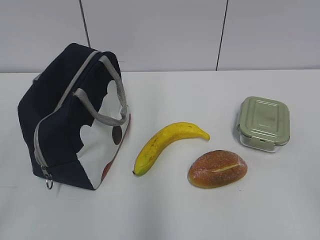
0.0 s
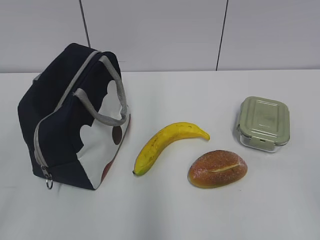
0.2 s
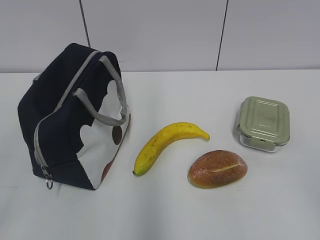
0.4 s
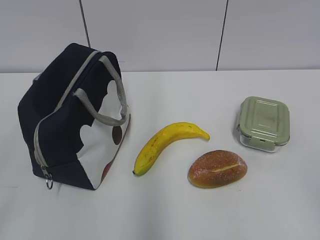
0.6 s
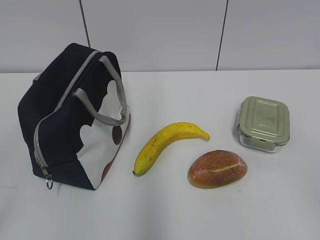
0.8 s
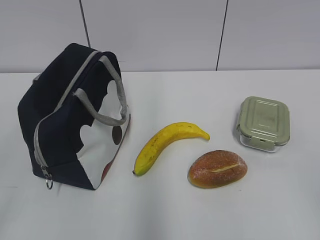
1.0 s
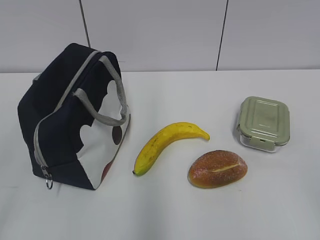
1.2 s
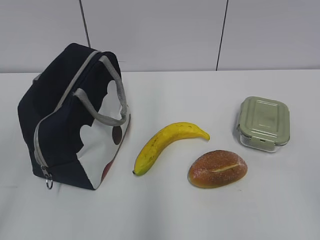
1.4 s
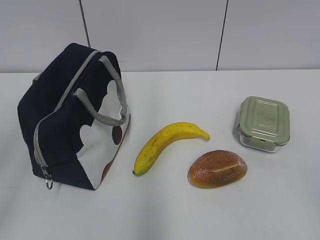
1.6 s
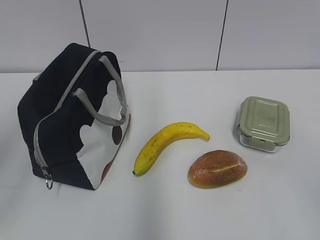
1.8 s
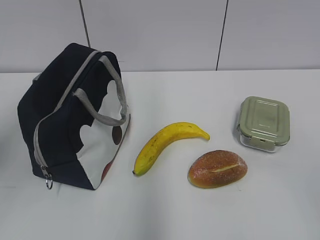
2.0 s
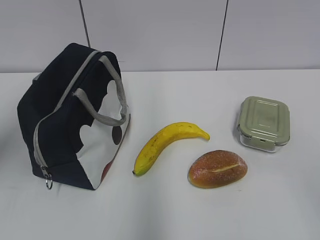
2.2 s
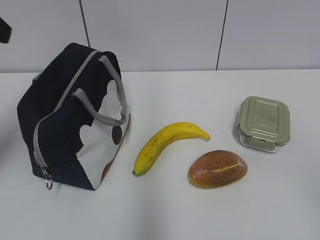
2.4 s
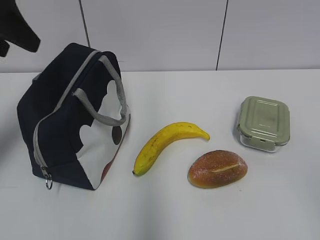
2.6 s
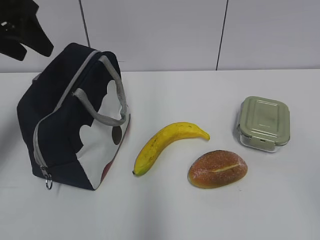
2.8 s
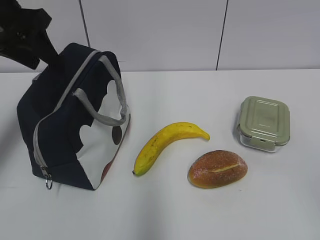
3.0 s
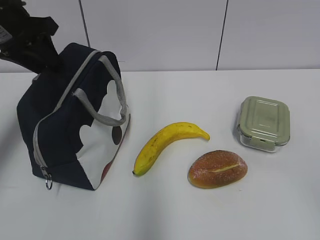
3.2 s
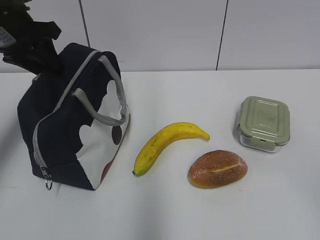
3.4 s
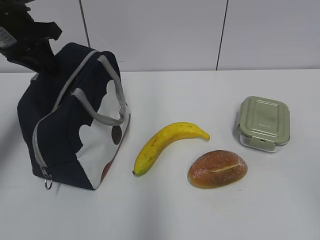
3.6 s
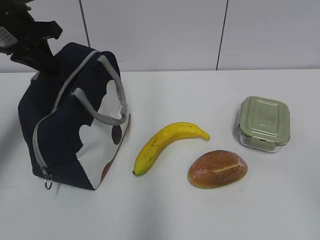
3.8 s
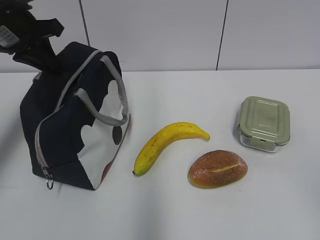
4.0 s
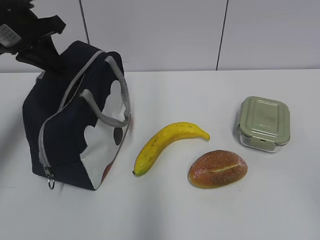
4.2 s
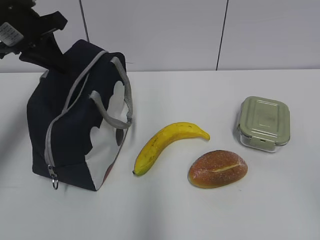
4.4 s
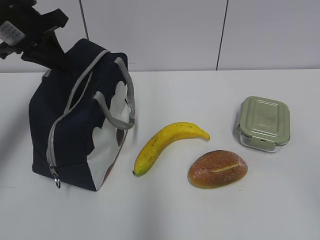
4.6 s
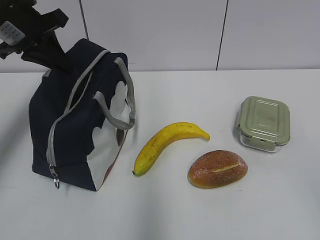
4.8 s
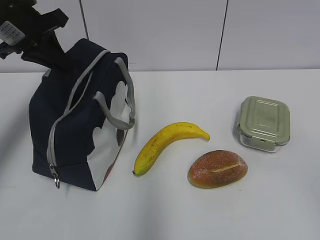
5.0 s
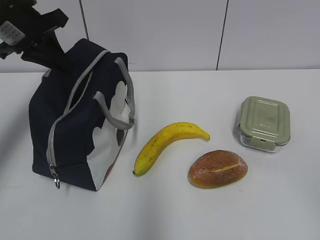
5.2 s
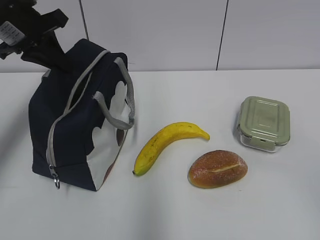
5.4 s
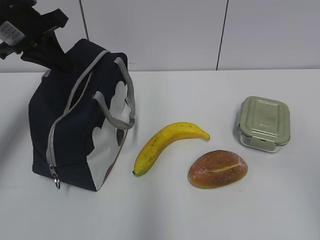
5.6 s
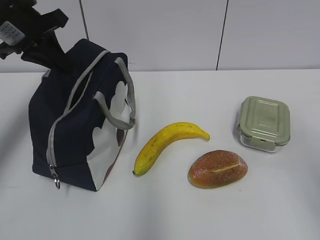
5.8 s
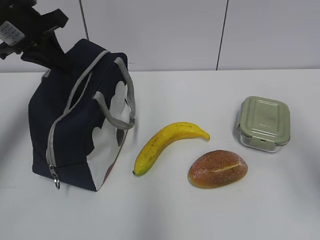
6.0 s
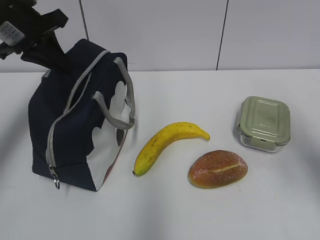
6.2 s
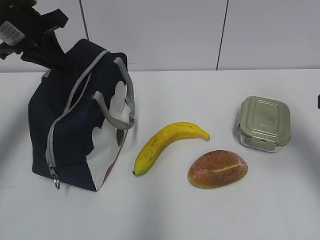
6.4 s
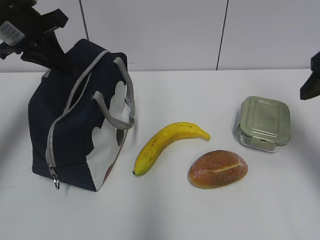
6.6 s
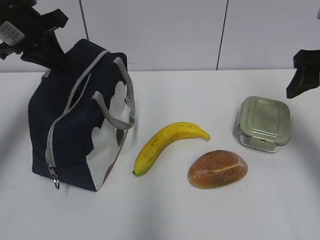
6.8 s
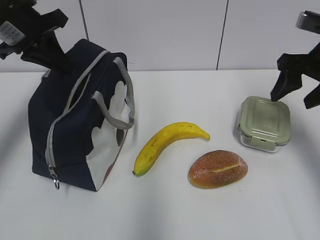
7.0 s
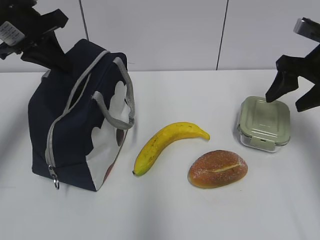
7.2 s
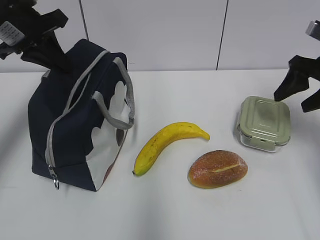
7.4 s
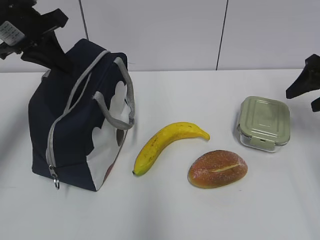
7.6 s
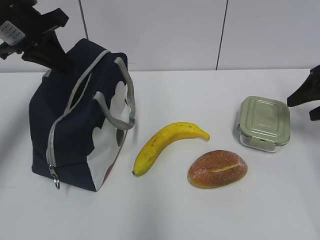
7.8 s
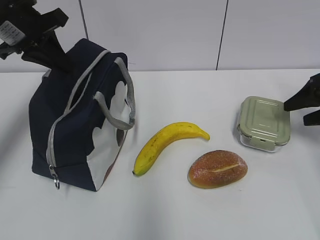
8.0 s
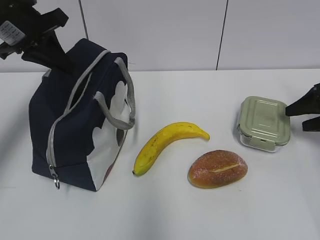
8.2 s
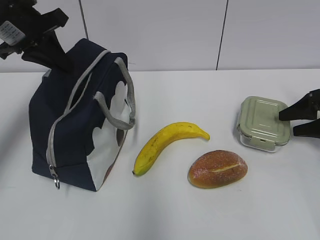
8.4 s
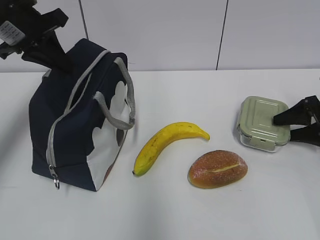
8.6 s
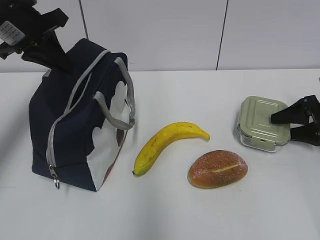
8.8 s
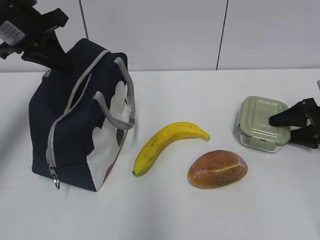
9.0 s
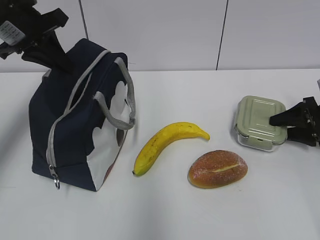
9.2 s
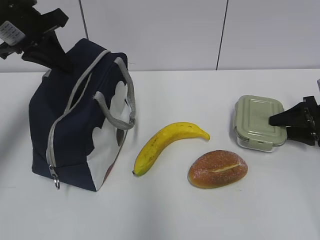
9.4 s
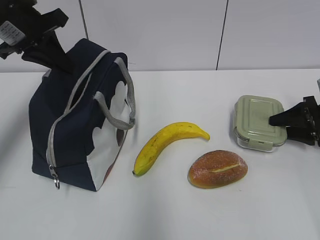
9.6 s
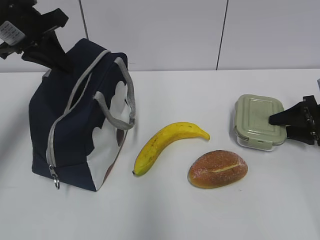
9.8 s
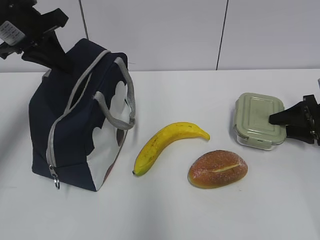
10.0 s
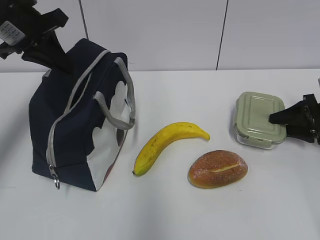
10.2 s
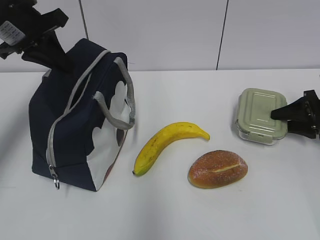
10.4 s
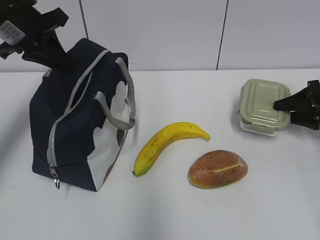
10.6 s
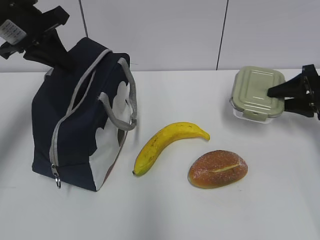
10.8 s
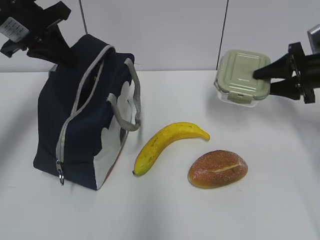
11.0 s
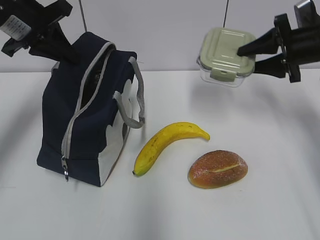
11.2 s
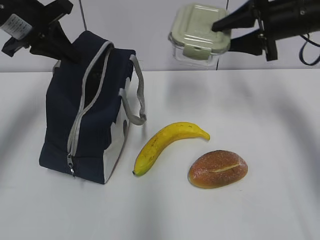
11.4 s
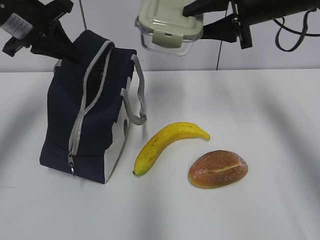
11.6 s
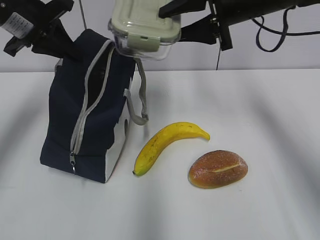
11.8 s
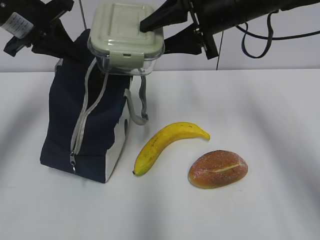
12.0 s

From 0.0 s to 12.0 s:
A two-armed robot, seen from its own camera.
Step, from 0.0 s to 9.8 s: Grab the lunch box with your right hand.
From 1.6 s to 3.0 s: The left gripper shifts approximately 35 cm forward.
From 3.0 s to 4.4 s: The left gripper closes up.
From 4.4 s to 6.0 s: The right gripper travels forward by some 15 cm.
From 6.0 s to 7.6 s: The right gripper moves forward, about 25 cm.
From 7.6 s to 9.0 s: The right gripper moves downward, roughly 15 cm.
From 9.0 s to 10.4 s: Both grippers stay put.
From 10.4 s to 12.0 s: The right gripper moves to the left and upward, approximately 35 cm.

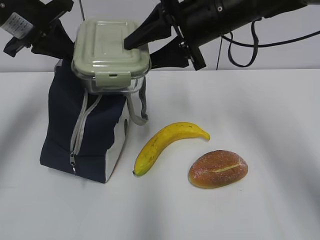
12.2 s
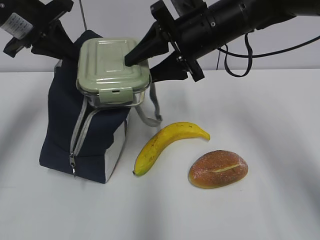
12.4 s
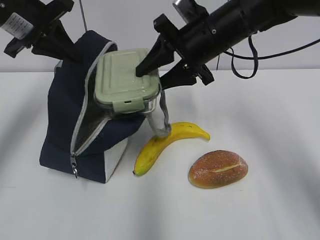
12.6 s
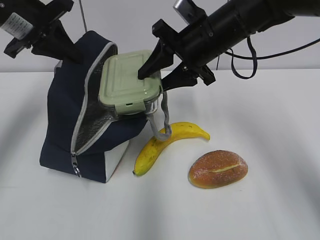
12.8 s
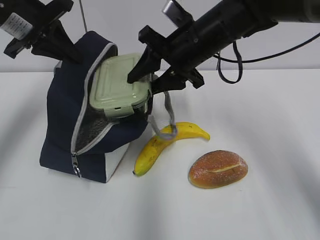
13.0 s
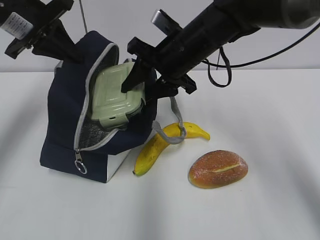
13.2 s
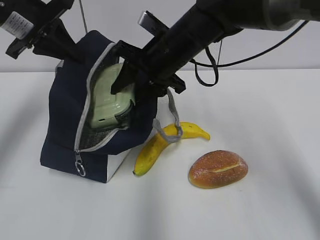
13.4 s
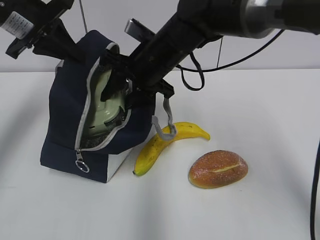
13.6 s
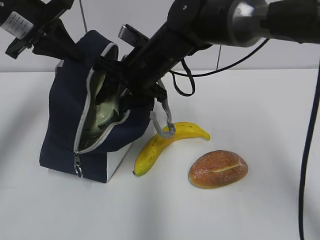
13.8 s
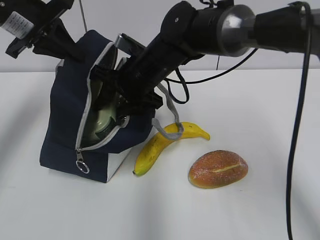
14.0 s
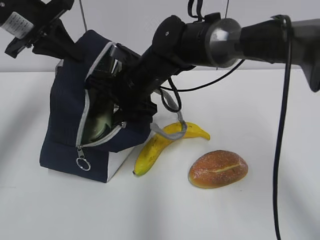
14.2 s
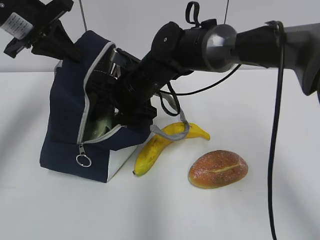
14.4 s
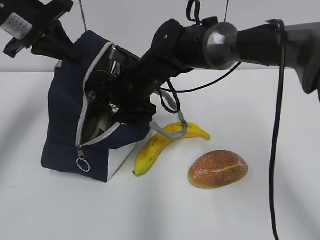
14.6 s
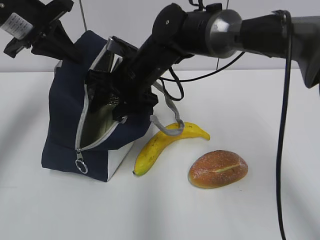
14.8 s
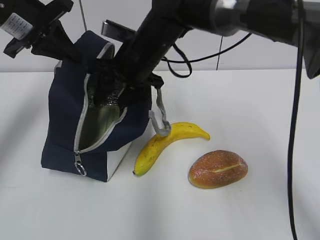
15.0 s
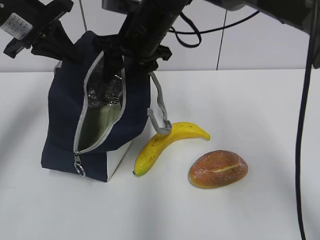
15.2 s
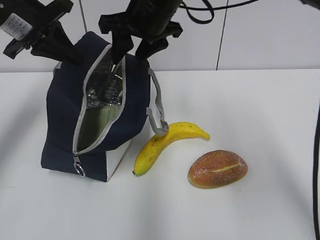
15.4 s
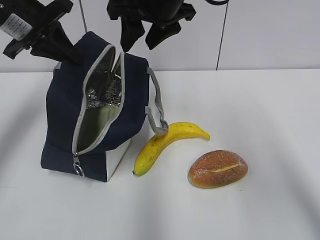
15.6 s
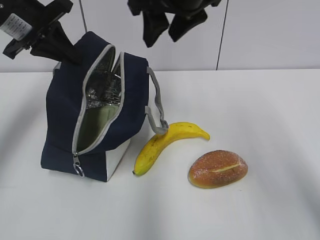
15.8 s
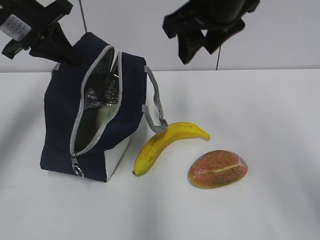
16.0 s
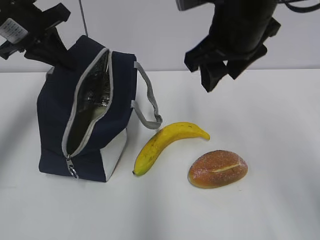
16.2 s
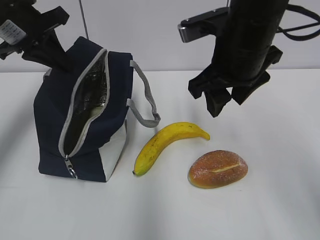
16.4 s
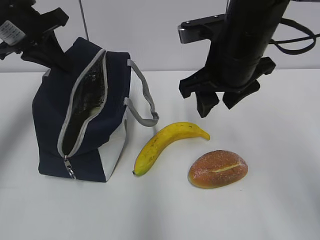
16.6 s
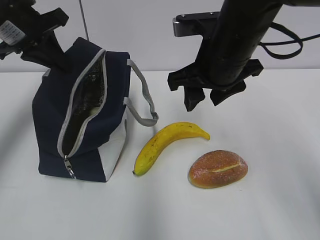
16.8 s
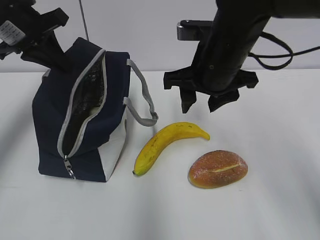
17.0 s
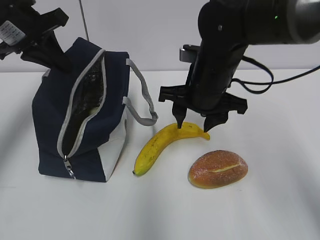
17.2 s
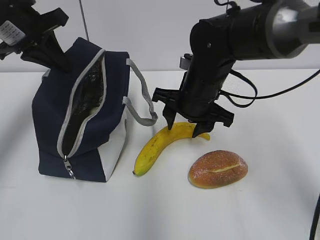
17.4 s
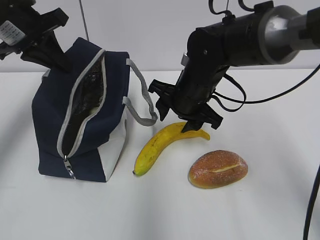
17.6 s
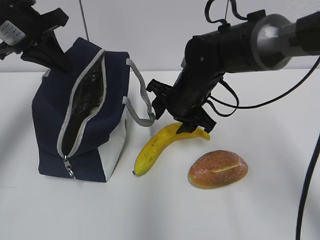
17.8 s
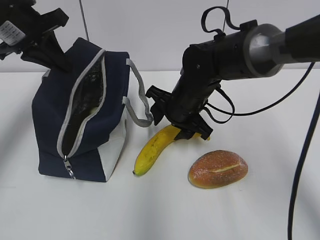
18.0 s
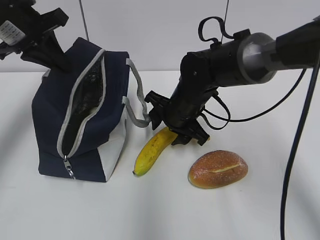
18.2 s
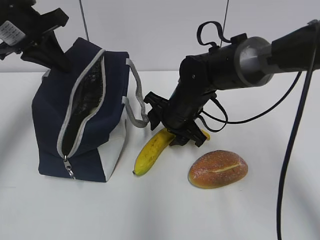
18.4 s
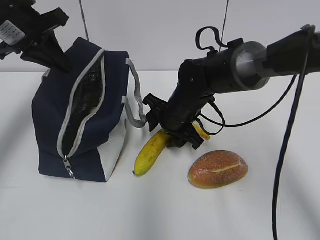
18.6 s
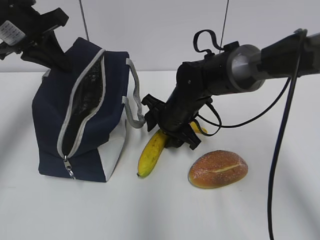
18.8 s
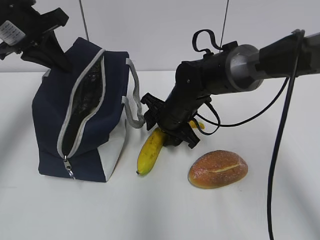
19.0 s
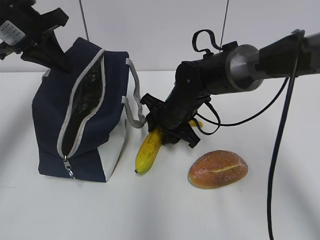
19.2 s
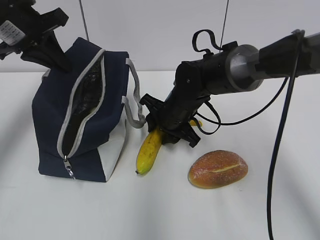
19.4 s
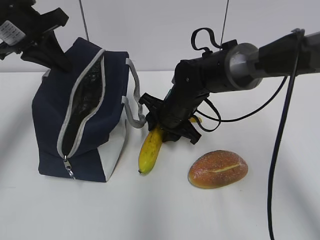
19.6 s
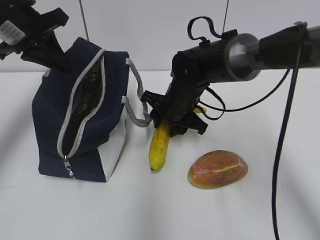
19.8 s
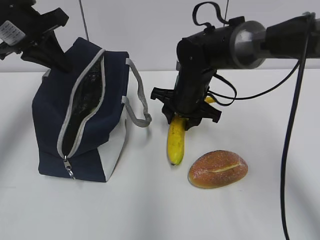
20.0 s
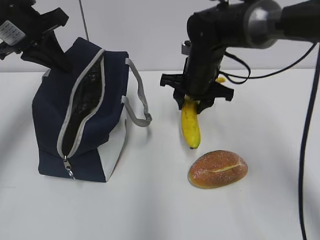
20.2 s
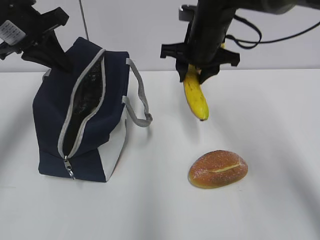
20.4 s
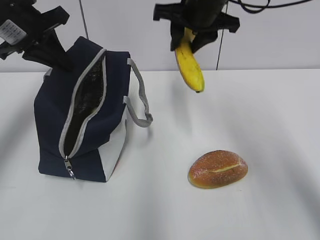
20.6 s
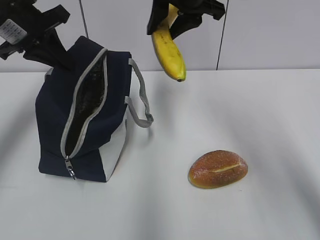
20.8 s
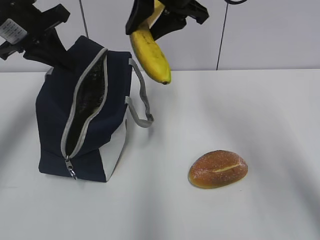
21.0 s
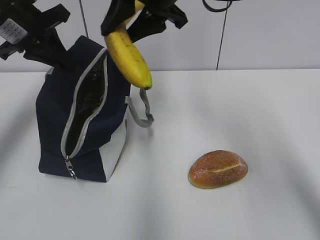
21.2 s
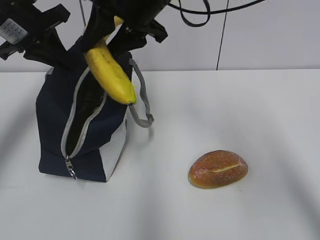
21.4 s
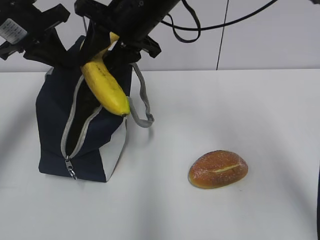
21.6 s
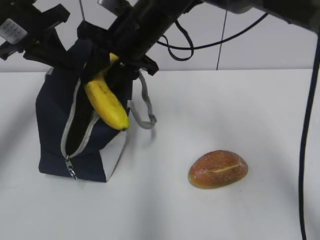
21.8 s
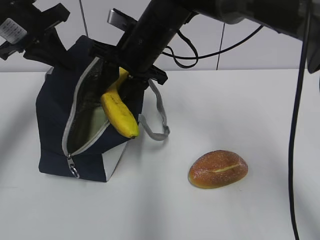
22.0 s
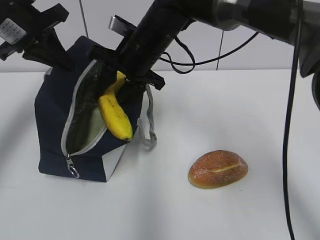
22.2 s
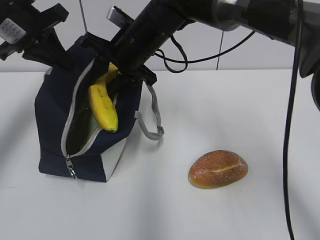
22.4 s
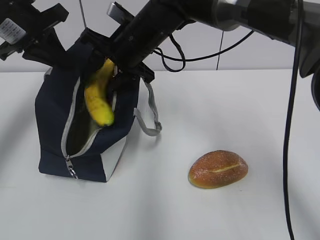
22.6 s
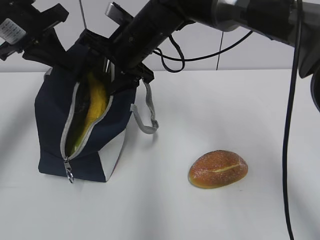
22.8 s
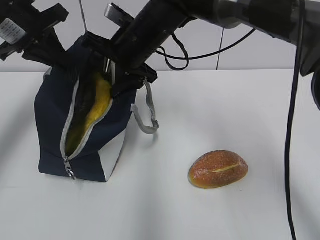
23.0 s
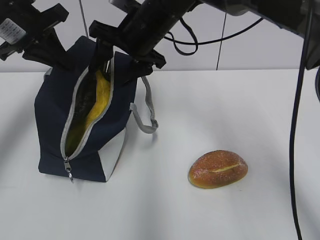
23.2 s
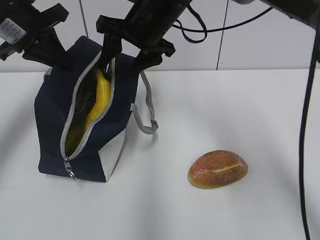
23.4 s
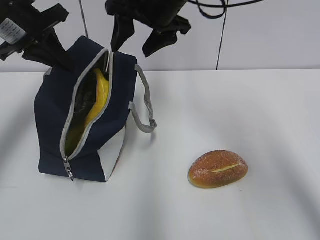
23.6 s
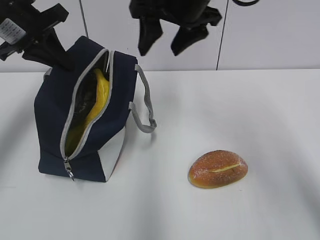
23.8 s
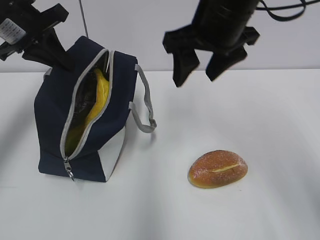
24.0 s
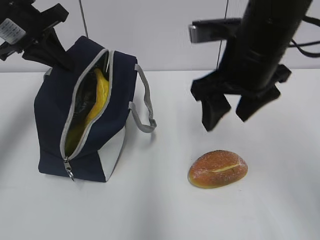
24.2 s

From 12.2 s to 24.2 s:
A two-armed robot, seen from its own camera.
Step, from 12.6 s to 14.8 s: Place it into the bag with your right hand.
Step, from 15.0 s to 19.6 s: Grab the banana with your right hand.
Step, from 19.8 s to 22.8 s: Place it into the bag with your right hand.
From 12.2 s to 13.8 s: The right gripper shifts roughly 10 cm to the left and downward.
From 13.8 s to 15.2 s: The right gripper shifts about 5 cm upward.
From 15.2 s to 16.6 s: The right gripper is displaced to the right and backward by roughly 15 cm.
From 16.6 s to 18.2 s: The right gripper heads downward and forward, covering roughly 15 cm.
From 18.2 s to 19.8 s: There are only small adjustments of the grippers.
From 19.8 s to 21.2 s: The right gripper travels upward by approximately 20 cm.
From 21.2 s to 22.6 s: The right gripper shifts approximately 10 cm downward and to the left.
From 22.6 s to 24.2 s: The right gripper heads to the right and backward, covering some 20 cm.
